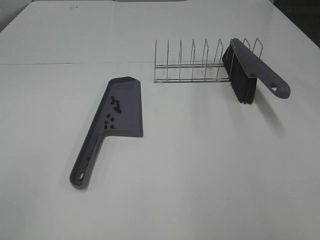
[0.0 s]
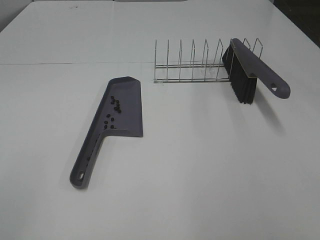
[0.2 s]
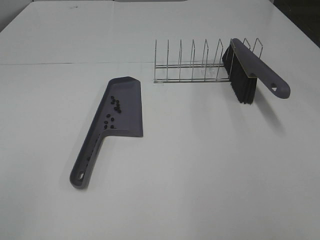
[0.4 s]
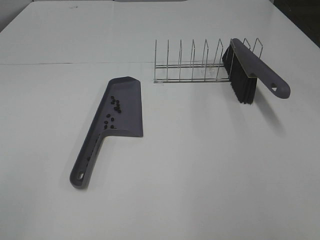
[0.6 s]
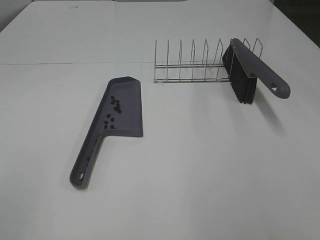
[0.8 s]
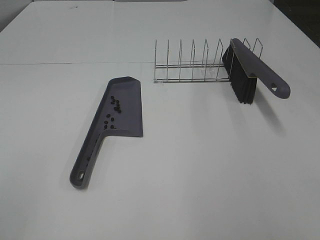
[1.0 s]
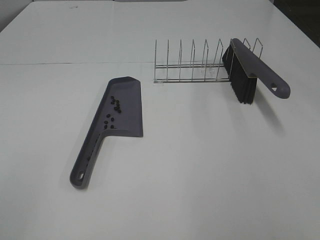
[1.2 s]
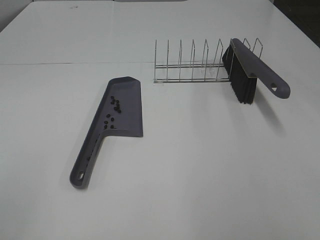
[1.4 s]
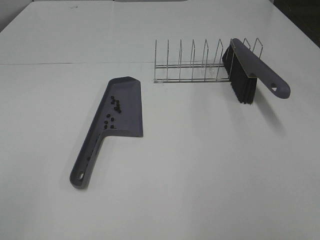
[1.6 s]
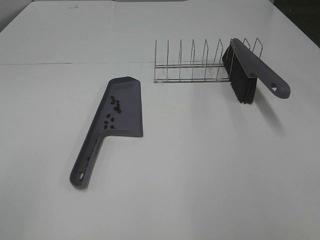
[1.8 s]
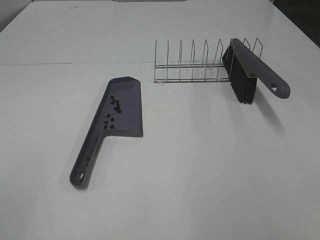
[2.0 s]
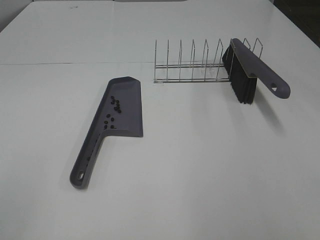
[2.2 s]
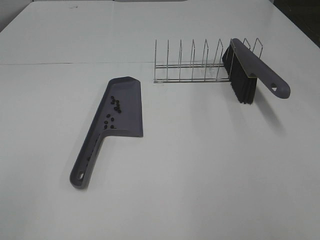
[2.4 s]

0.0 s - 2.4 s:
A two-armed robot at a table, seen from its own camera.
Task of the whole recording: Sweep Coffee Bean.
0.0 s - 2.4 s: Neither gripper changes place.

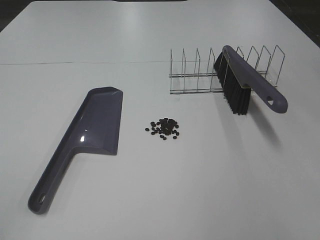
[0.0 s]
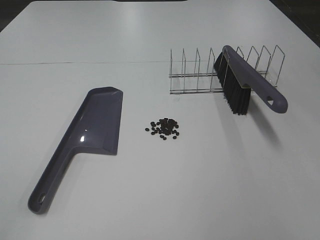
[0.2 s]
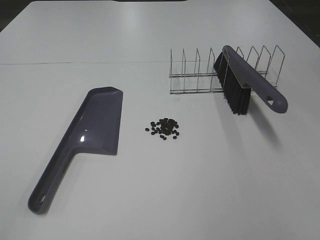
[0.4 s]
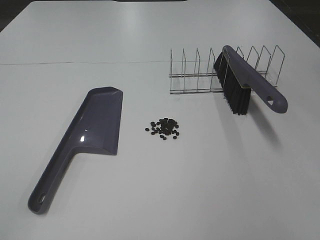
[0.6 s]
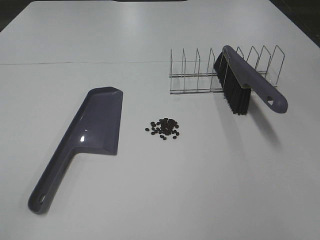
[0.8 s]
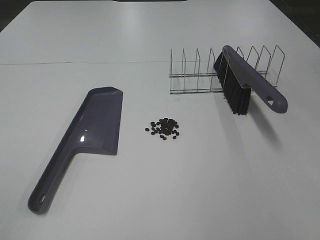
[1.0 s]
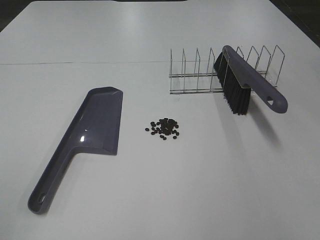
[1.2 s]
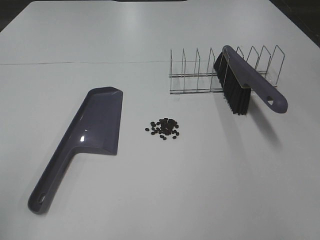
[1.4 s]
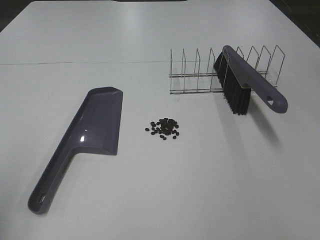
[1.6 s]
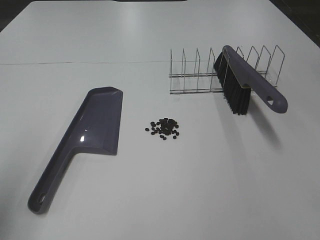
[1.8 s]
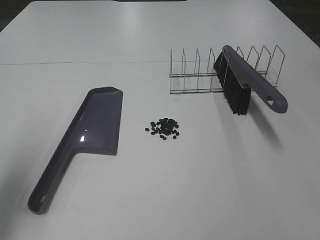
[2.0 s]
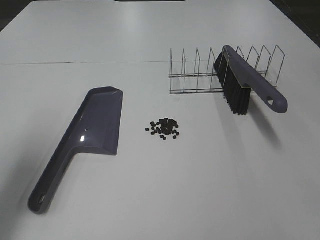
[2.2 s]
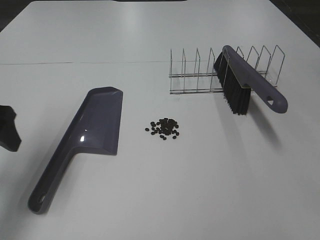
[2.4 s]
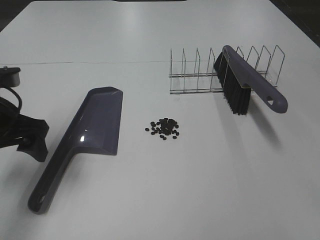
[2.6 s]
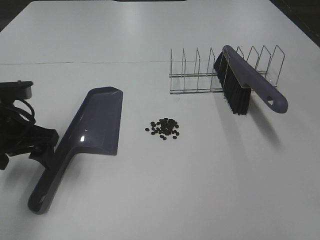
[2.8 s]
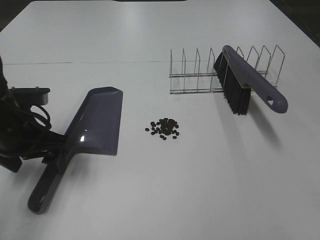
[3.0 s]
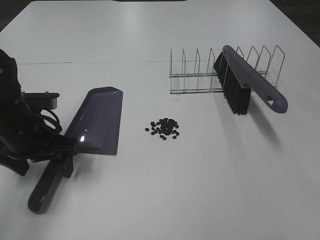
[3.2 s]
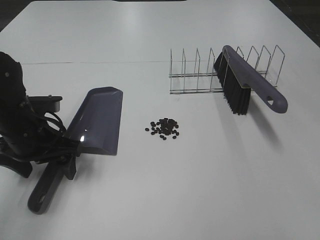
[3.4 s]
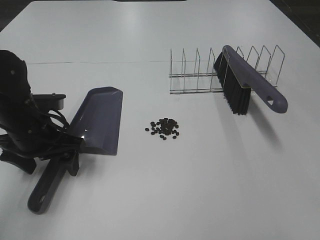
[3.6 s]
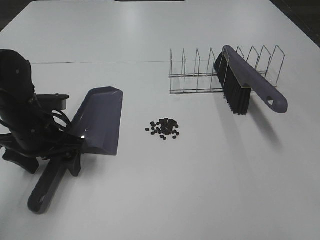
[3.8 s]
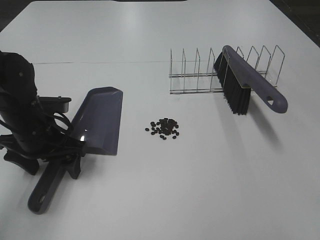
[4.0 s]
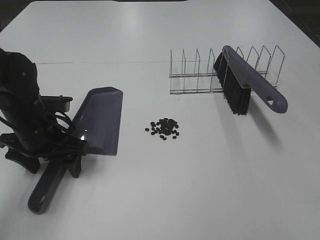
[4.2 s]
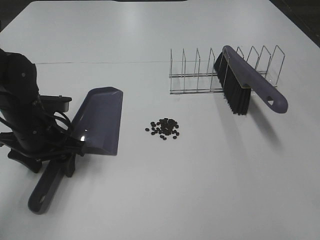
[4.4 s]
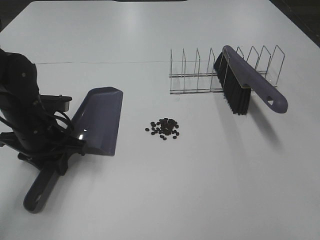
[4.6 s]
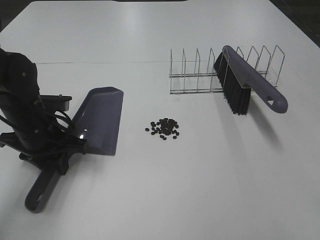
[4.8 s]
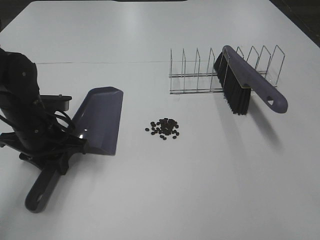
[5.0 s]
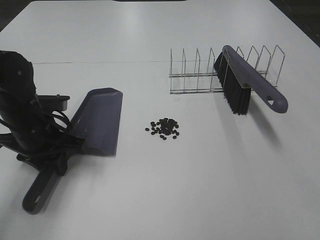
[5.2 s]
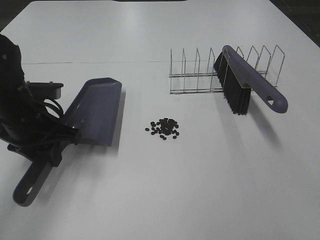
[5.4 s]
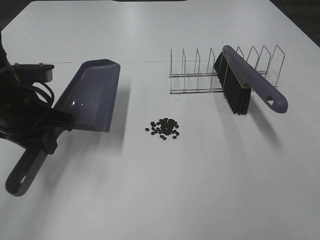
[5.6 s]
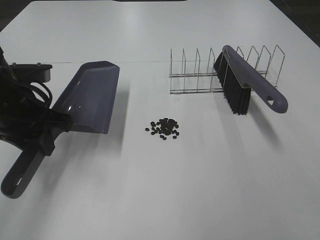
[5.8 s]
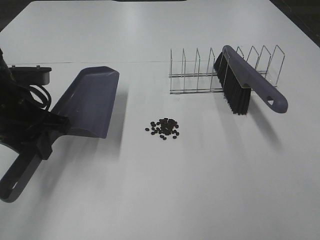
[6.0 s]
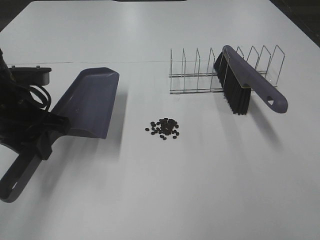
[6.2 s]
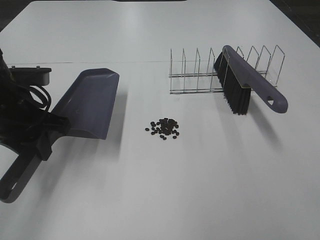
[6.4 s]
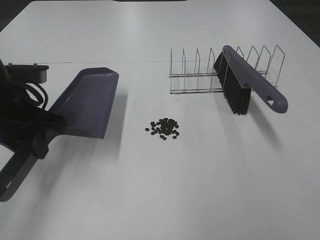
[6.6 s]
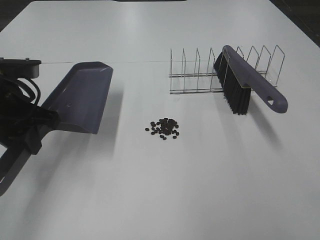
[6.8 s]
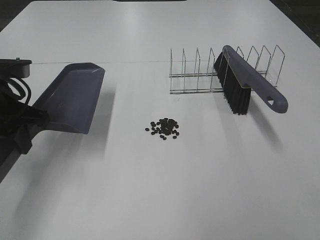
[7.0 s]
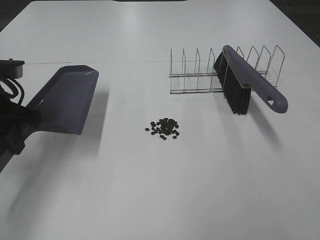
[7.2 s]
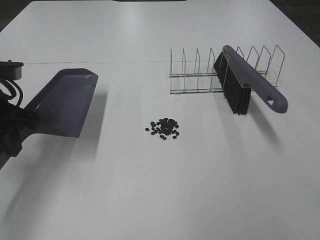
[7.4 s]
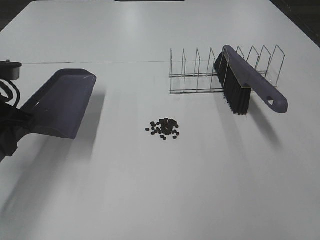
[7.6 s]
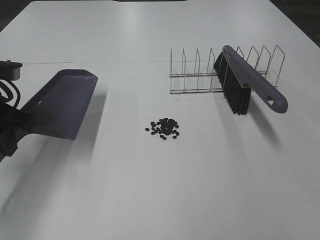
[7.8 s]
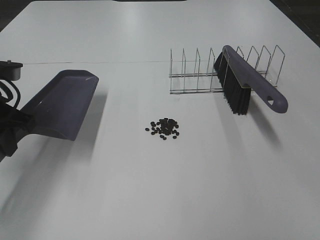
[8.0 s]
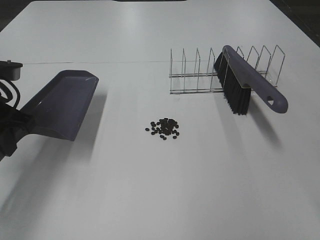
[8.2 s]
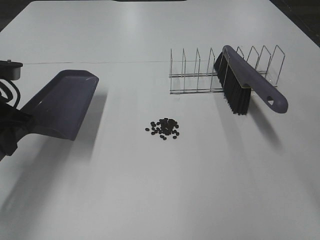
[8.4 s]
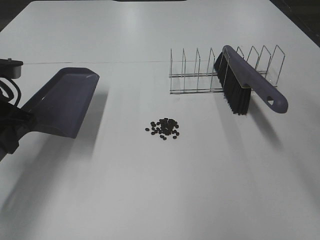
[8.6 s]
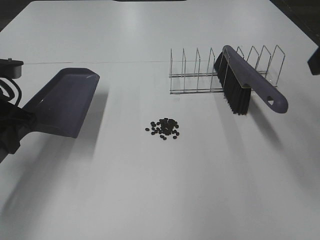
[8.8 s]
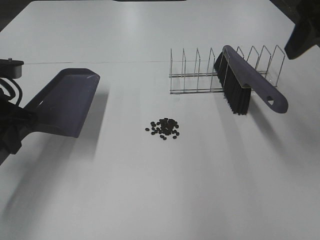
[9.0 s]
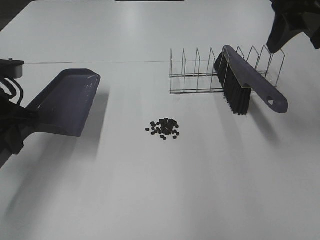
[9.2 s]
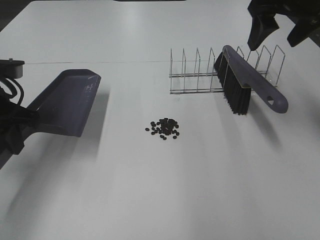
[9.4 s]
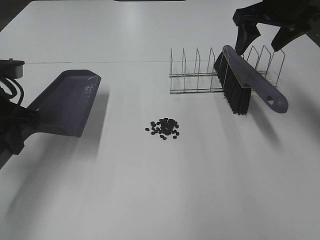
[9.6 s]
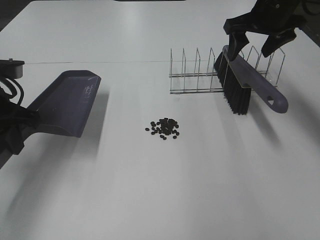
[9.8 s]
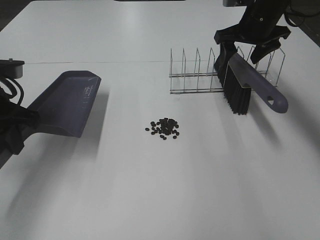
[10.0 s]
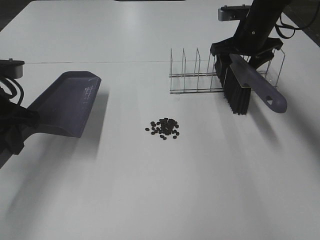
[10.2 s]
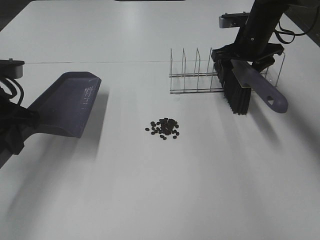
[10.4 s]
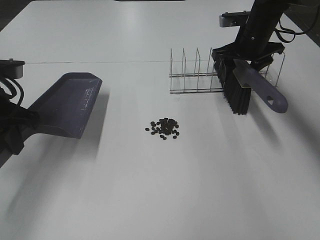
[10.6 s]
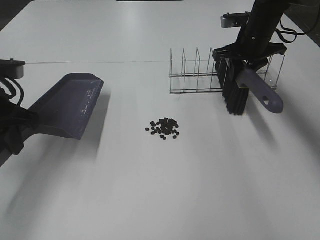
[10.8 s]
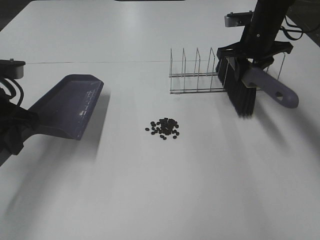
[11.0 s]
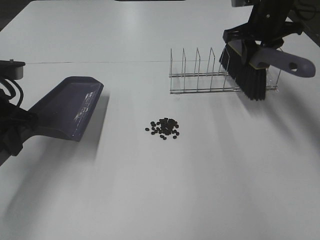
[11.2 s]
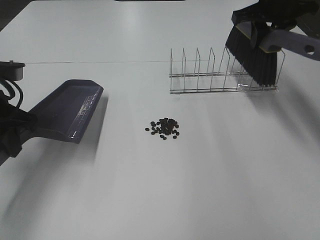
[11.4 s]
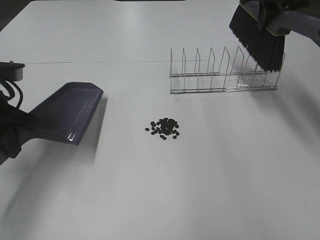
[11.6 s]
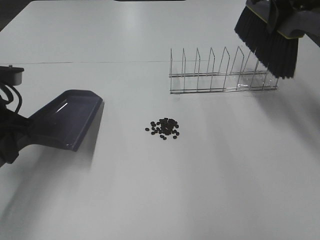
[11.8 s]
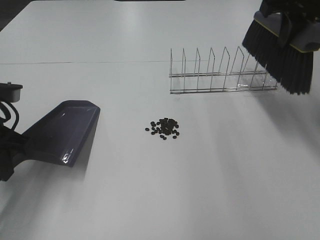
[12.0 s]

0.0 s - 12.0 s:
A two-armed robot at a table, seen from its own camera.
Task of the whole recording: Sweep Coffee Bean.
Step, 0.0 s - 4.6 s: Left hand: grab the dustpan.
Step, 7.6 s - 10.8 s: Right hand:grab the broom.
1.6 s - 3.0 s: The left gripper goes about 25 cm forward, downward and to the right.
3.0 s - 4.4 s: The grippers move only a little.
4.4 s - 6.0 s: The left gripper is displaced upward by about 10 cm, and closes its fingers.
6.0 s - 7.6 s: The grippers make only small movements.
7.6 s - 9.0 s: The right gripper is displaced forward by roughly 30 cm.
9.0 s - 10.4 s: The right gripper goes approximately 30 cm forward and downward.
10.4 s - 12.0 s: The right gripper moves upward and backward, about 20 cm, and closes up.

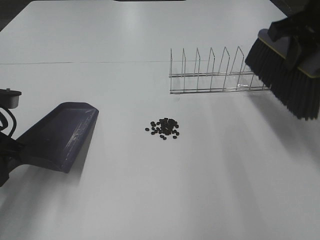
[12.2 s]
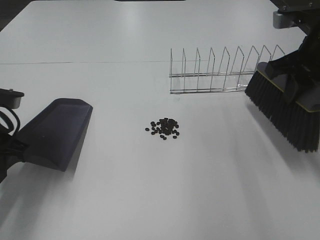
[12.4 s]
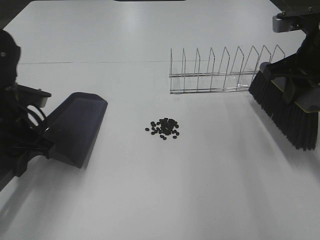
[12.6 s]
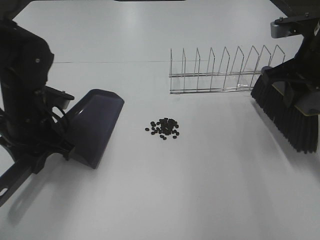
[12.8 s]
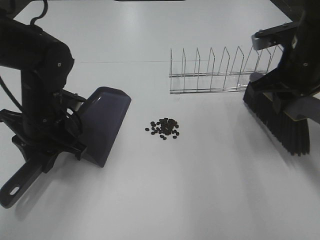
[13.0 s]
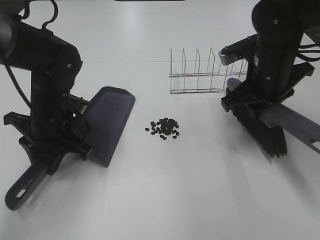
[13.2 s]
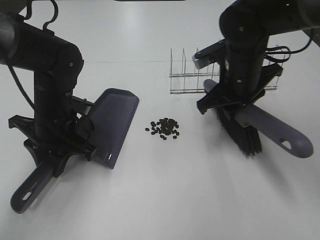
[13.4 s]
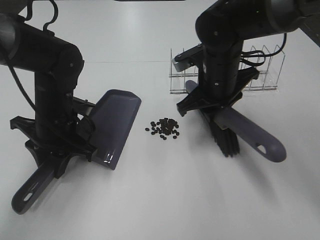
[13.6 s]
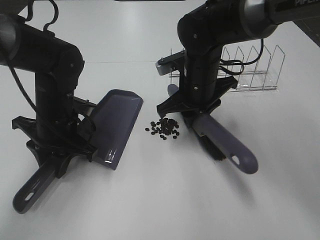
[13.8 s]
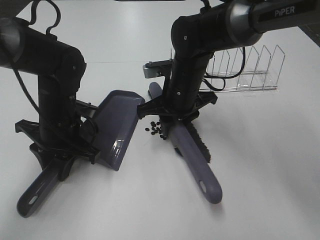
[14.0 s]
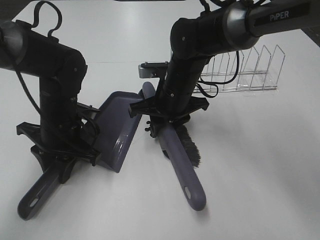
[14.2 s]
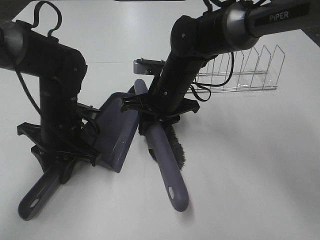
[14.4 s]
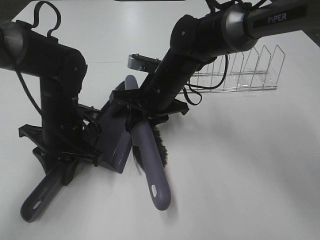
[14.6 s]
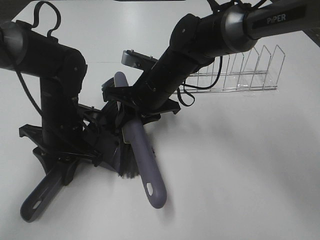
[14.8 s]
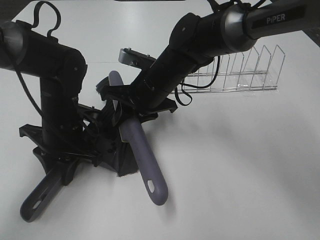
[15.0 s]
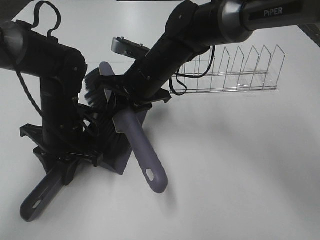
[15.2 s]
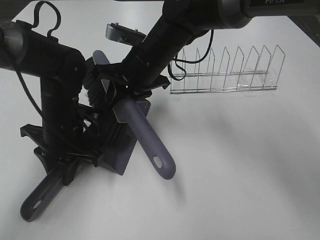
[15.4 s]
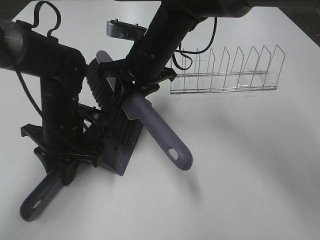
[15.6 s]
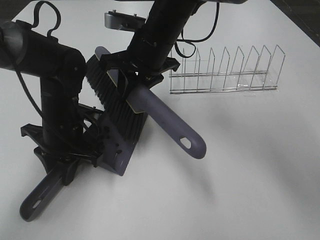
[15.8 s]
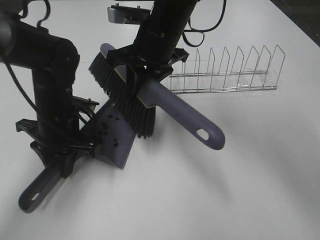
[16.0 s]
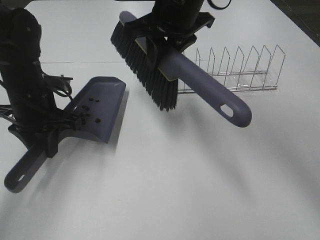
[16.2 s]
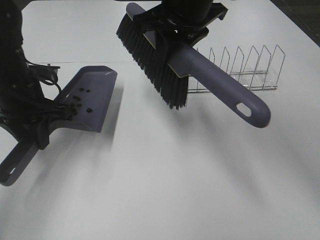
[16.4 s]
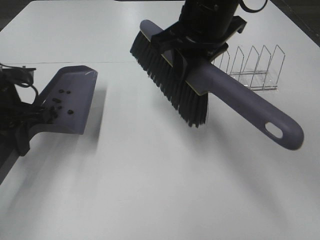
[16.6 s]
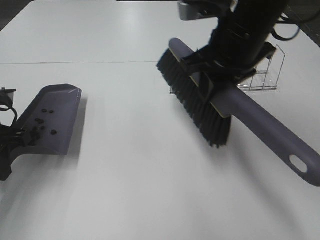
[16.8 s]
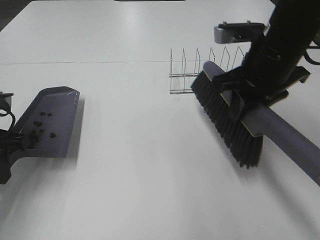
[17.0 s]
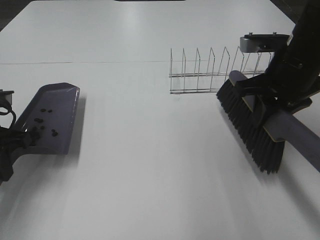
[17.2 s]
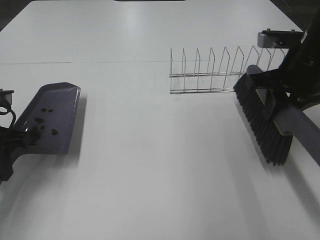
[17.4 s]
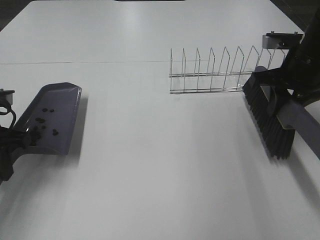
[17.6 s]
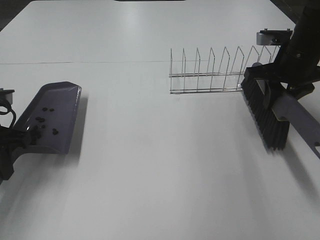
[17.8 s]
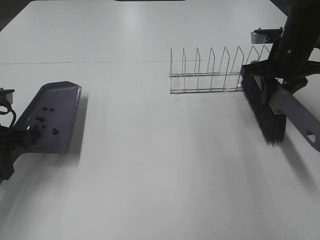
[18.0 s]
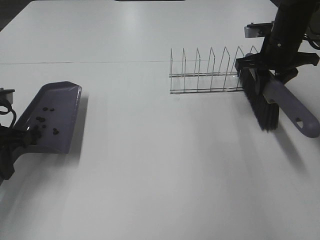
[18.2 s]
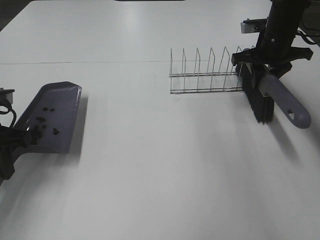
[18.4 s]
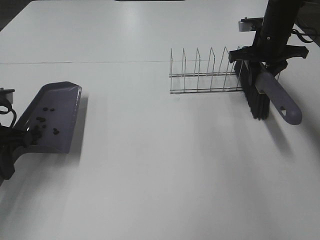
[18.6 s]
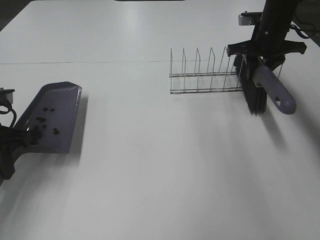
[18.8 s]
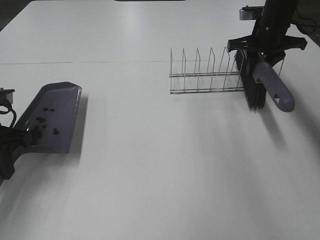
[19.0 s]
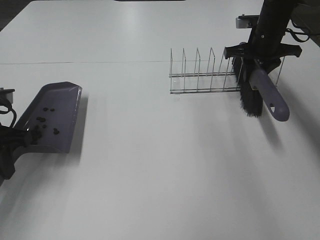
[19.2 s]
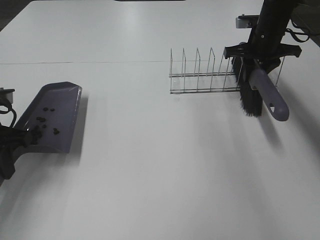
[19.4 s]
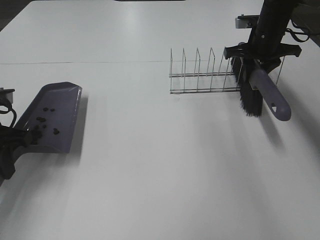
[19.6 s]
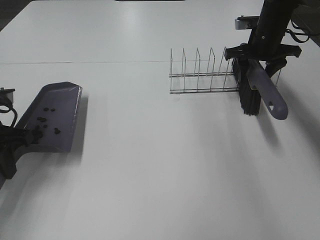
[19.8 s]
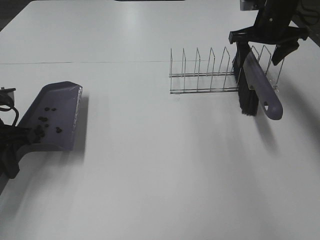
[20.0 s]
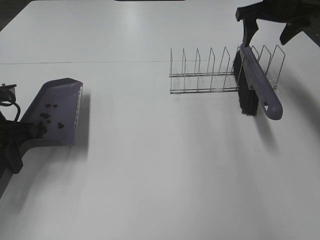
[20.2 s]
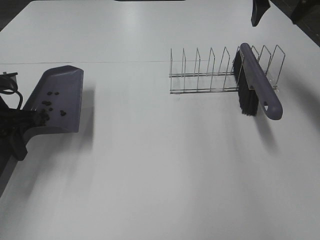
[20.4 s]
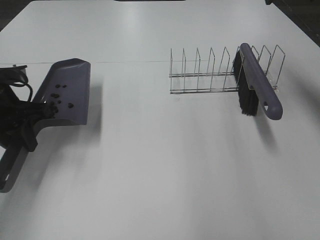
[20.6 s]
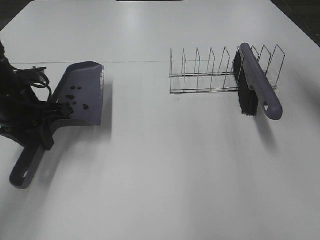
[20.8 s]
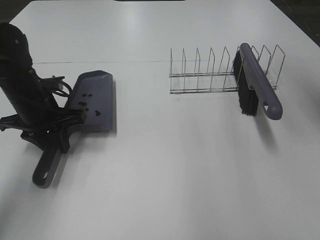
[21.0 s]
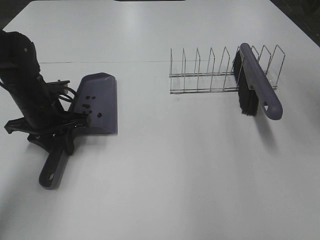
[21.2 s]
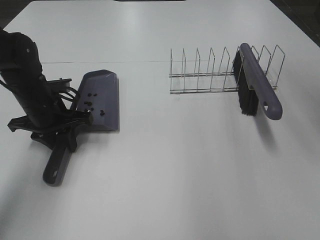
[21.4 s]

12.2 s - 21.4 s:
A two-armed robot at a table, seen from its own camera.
Task of the whole recording: Sweep Coffee Bean.
Step, 12.2 s - 15.2 s: Right hand:sweep the coffee beans into the dustpan.
Step, 15.4 s - 19.6 s: Right hand:place the broom on the rack.
12.2 s - 13.8 s: The right gripper heads to the left and downward, covering roughly 25 cm. Meanwhile the left gripper heads to the right, forward and downward, covering some 15 cm.
13.8 s - 15.2 s: The right gripper moves to the left, some 5 cm.
15.2 s - 16.8 s: The left gripper moves to the left and upward, about 15 cm, while the right gripper moves to the right, upward and backward, some 15 cm.
16.8 s - 18.4 s: The right gripper goes some 20 cm forward, to the right and downward.
18.4 s - 19.8 s: The right gripper opens up.
19.8 s - 21.4 s: The left gripper moves forward, to the right and downward, some 10 cm. Meanwhile the right gripper travels upward and backward by roughly 30 cm.
